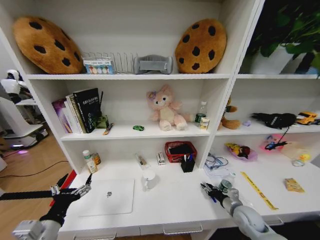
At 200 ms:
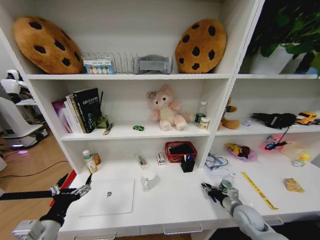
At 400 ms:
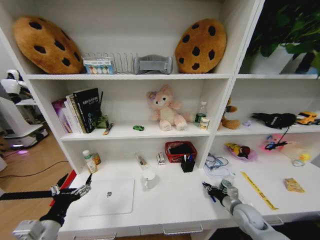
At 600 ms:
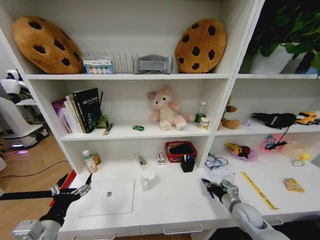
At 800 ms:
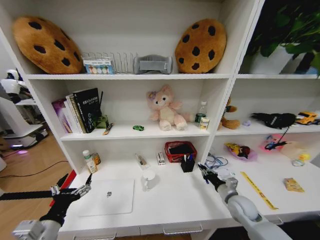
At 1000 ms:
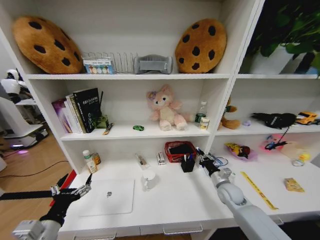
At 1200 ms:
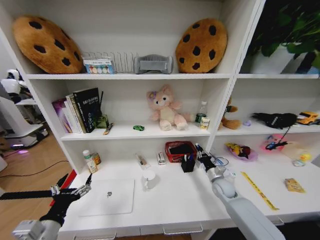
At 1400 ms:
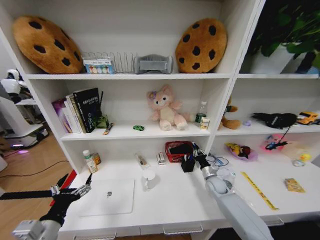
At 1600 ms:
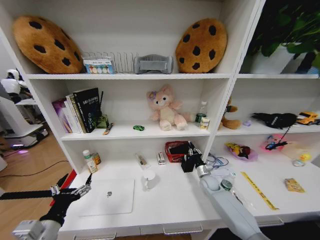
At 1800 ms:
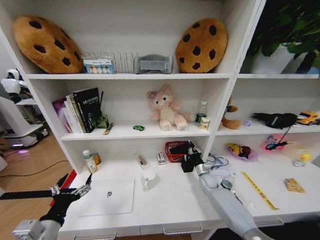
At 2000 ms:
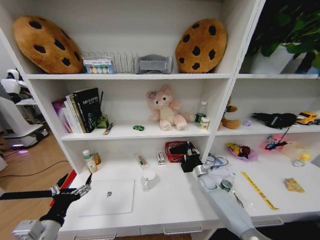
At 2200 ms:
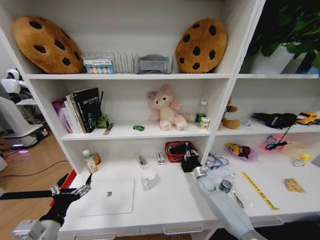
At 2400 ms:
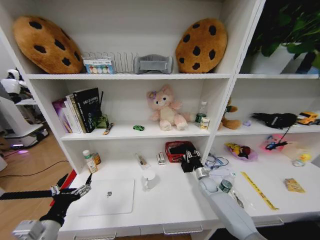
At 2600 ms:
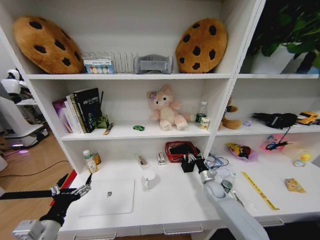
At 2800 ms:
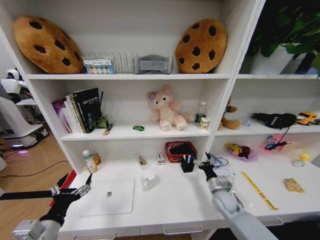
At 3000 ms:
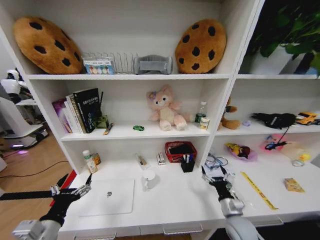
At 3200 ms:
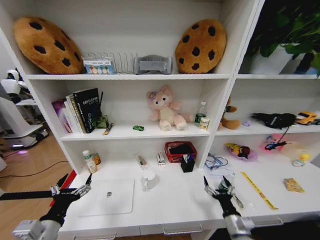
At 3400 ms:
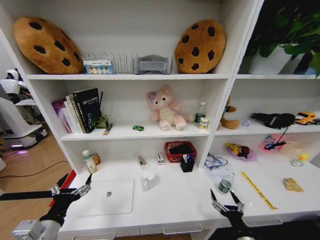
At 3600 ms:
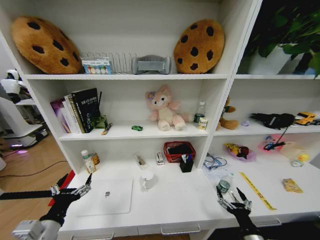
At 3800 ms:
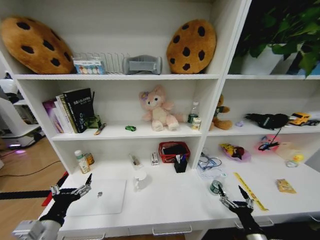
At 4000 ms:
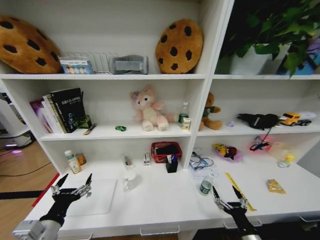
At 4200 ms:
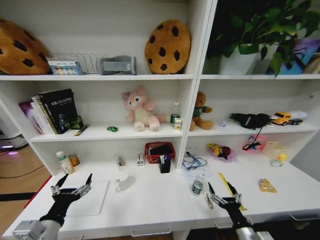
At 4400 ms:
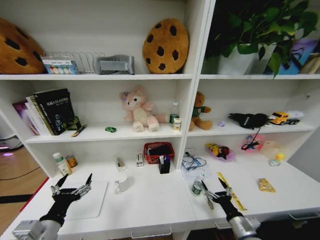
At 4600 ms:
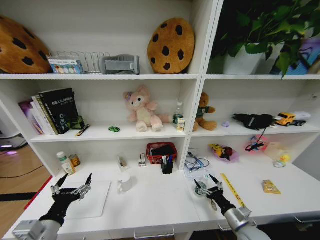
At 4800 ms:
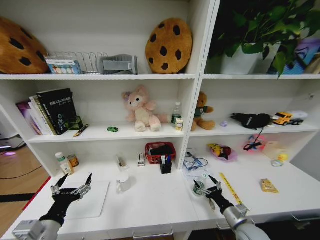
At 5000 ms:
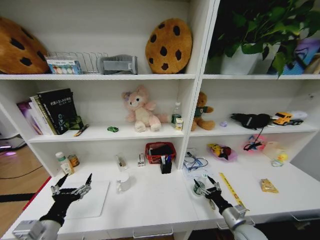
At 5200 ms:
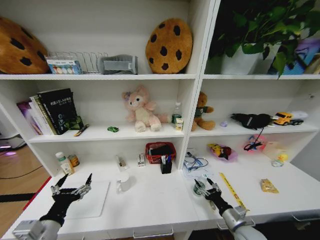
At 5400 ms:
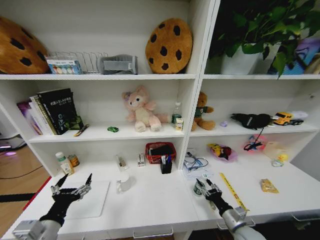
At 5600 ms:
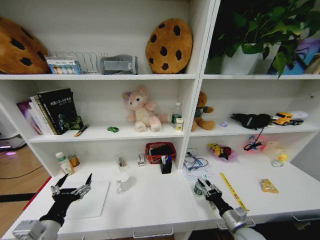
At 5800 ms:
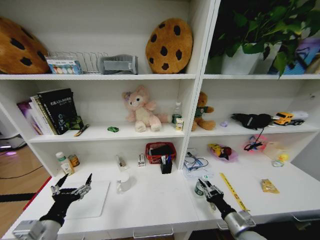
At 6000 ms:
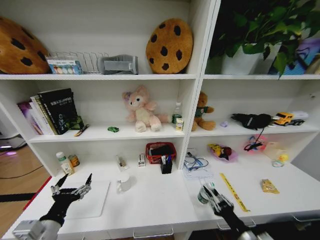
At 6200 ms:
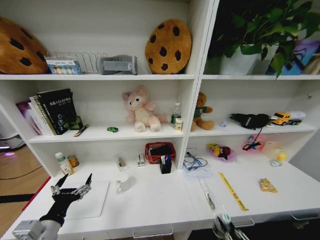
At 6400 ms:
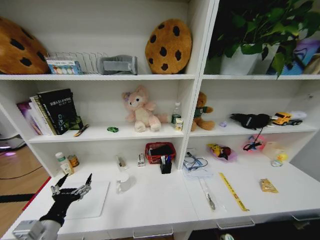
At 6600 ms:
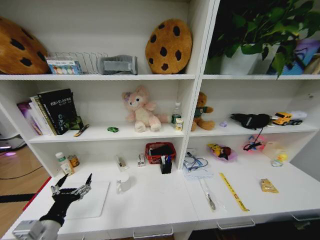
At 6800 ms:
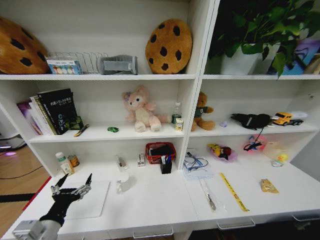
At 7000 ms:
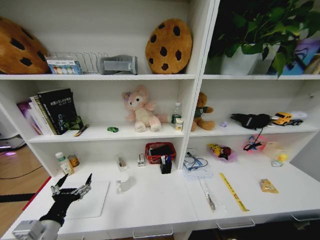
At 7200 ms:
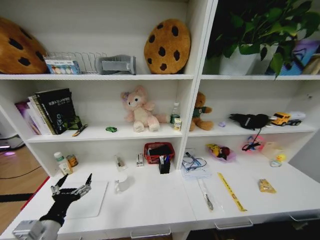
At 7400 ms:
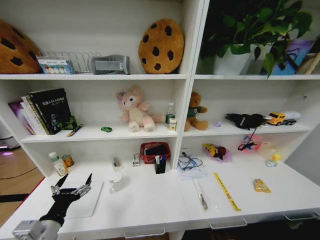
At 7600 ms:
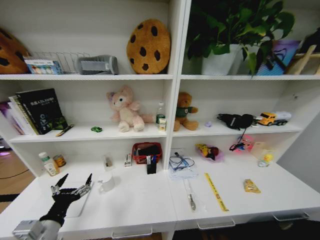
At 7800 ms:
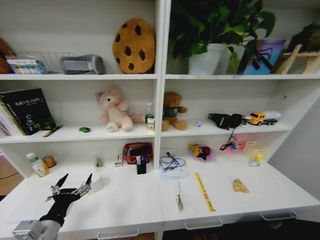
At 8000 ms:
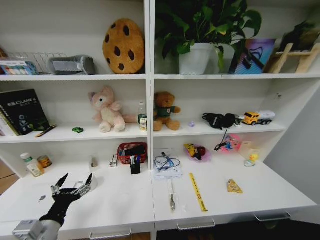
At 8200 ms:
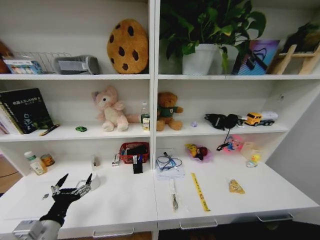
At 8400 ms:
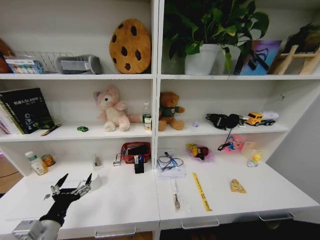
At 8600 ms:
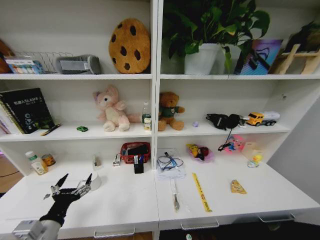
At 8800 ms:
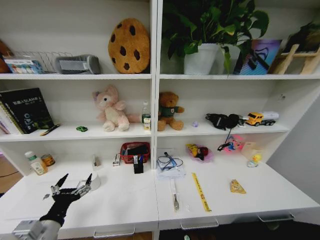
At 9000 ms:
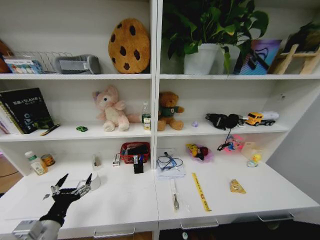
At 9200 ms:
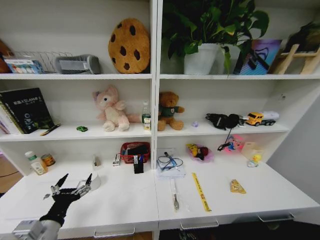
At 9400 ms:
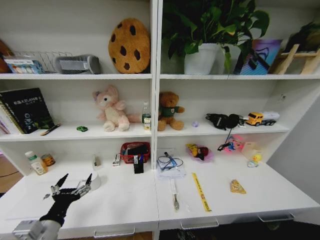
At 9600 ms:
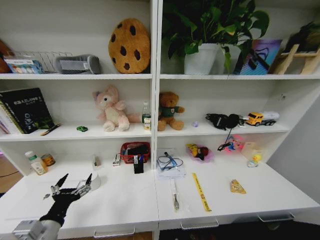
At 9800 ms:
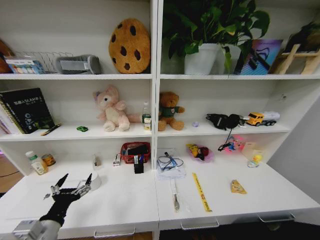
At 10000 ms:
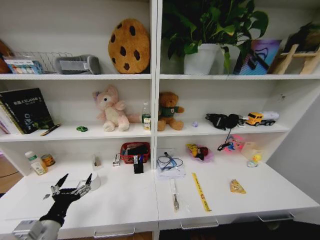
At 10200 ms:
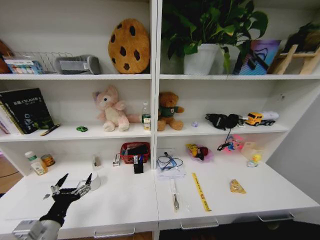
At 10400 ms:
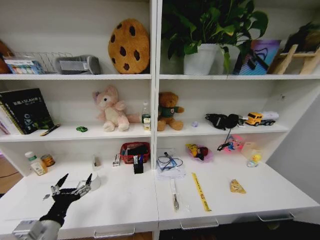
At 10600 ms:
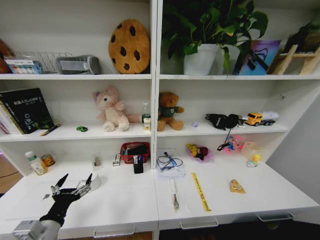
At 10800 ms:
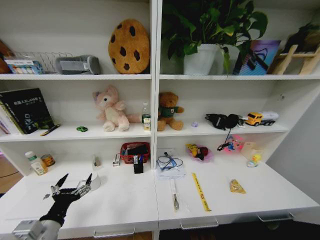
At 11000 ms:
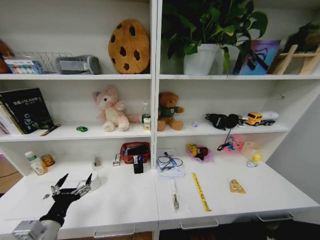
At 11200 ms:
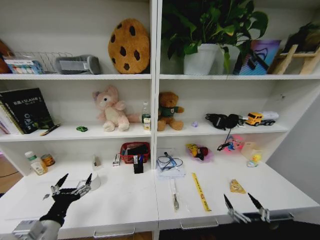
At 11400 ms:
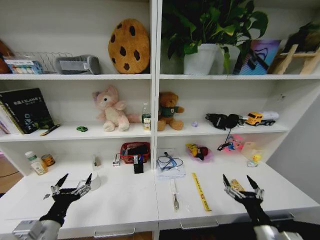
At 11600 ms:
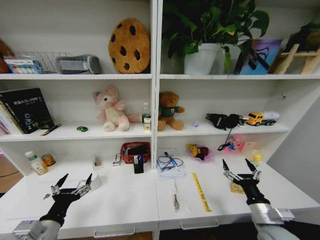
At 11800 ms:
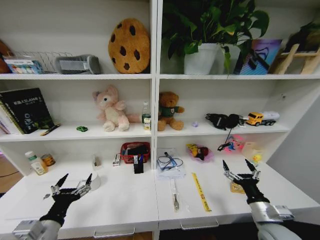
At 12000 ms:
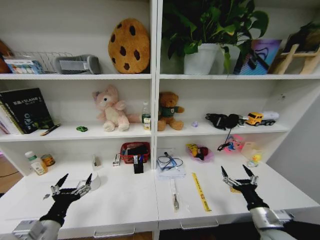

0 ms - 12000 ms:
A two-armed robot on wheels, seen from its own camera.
Task of the whole recording: Organize the objects on the table.
0 ms - 1600 ms: The right gripper moves forward and to the left, about 20 cm, and closes its fingers.
1600 ms - 3000 ms: The right gripper travels backward by roughly 20 cm, and opens.
3000 ms - 4400 ms: The right gripper travels backward by about 10 cm.
4400 ms - 6000 ms: The right gripper heads backward, covering some 5 cm, and closes its fingers.
6000 ms - 7600 ms: The right gripper shifts roughly 25 cm backward and downward.
7600 ms - 9000 ms: The right gripper goes some 25 cm downward and forward.
10400 ms - 12000 ms: The right gripper heads upward and forward, covering approximately 40 cm.

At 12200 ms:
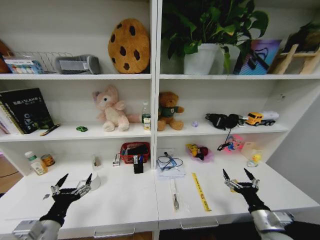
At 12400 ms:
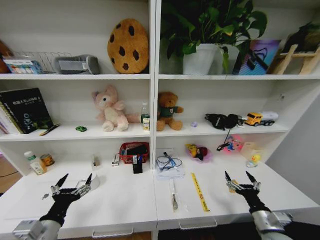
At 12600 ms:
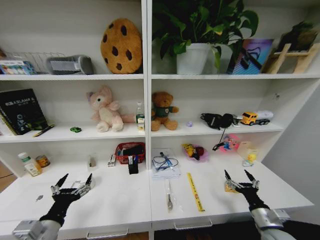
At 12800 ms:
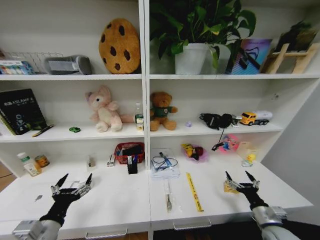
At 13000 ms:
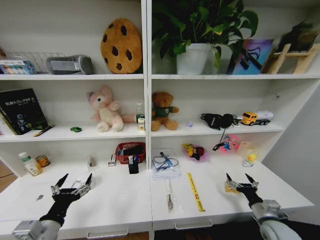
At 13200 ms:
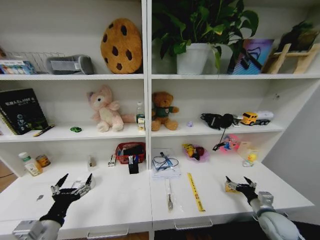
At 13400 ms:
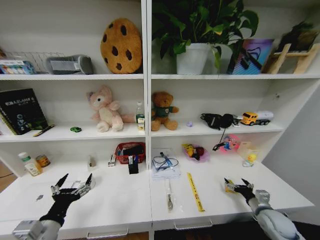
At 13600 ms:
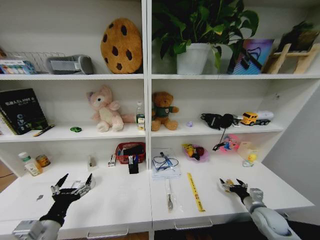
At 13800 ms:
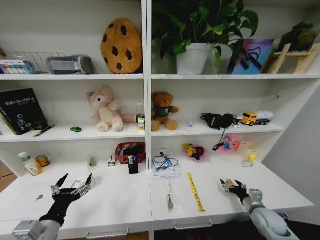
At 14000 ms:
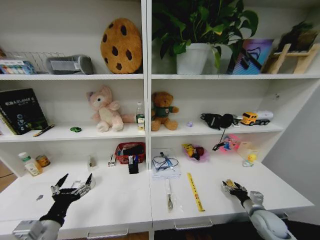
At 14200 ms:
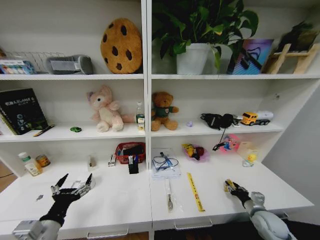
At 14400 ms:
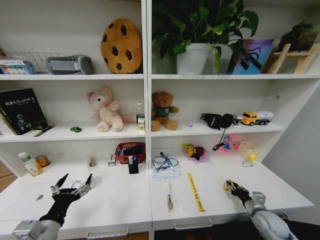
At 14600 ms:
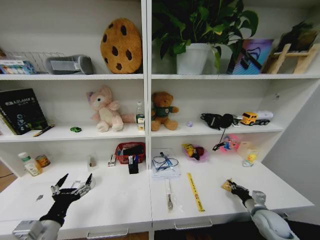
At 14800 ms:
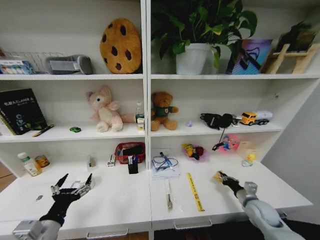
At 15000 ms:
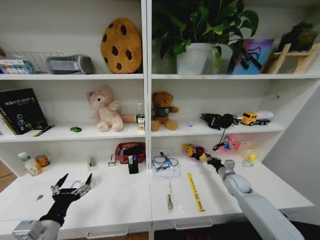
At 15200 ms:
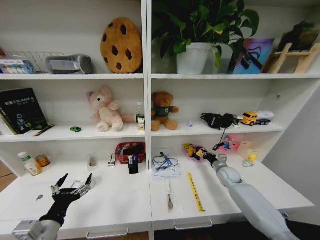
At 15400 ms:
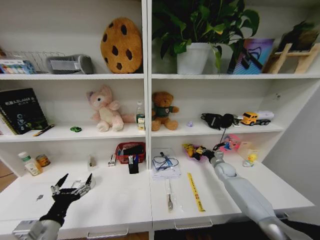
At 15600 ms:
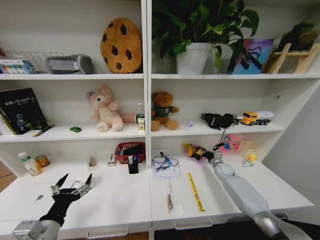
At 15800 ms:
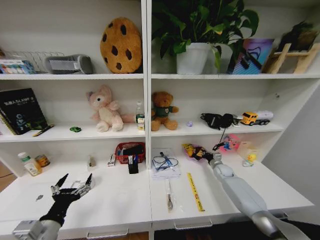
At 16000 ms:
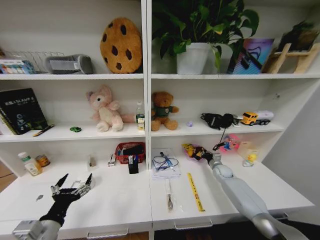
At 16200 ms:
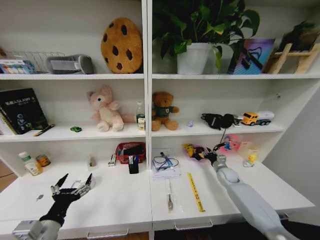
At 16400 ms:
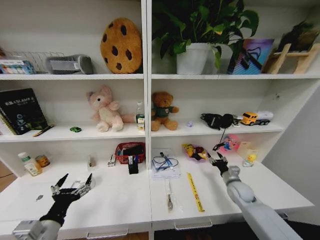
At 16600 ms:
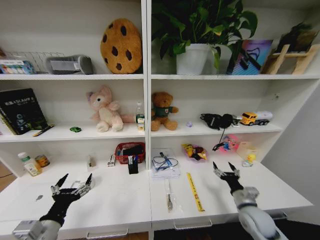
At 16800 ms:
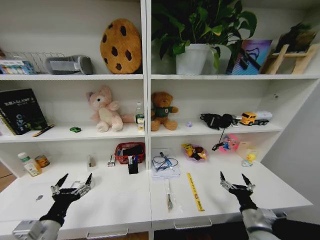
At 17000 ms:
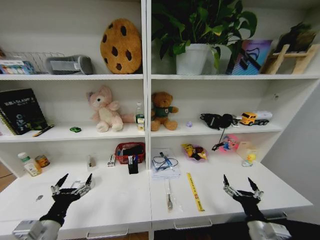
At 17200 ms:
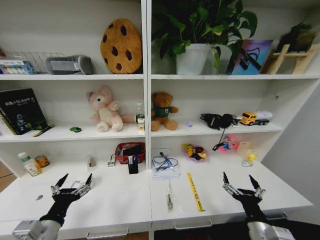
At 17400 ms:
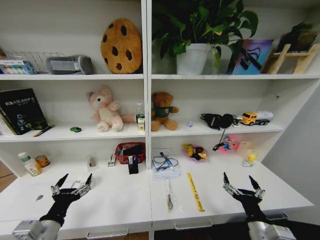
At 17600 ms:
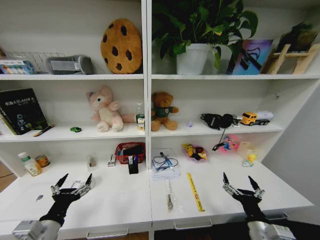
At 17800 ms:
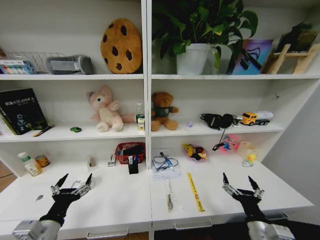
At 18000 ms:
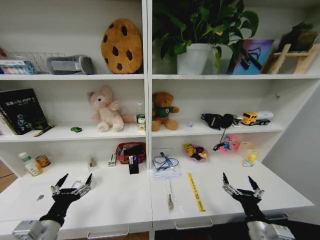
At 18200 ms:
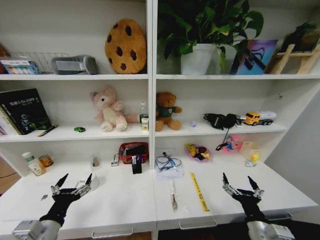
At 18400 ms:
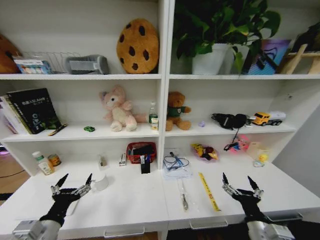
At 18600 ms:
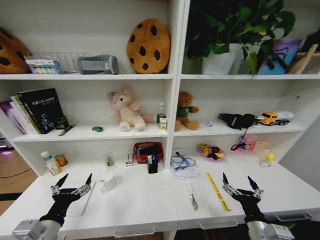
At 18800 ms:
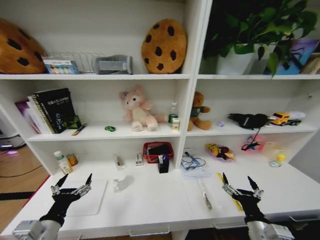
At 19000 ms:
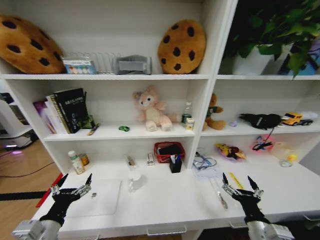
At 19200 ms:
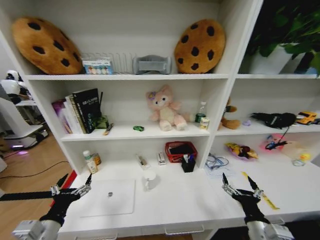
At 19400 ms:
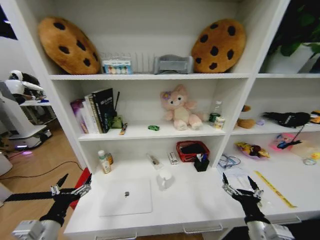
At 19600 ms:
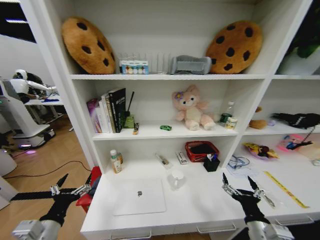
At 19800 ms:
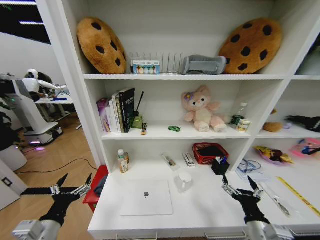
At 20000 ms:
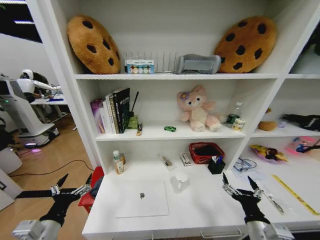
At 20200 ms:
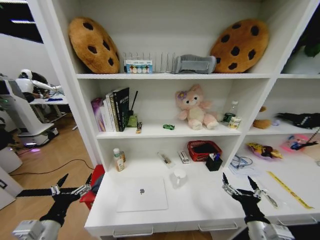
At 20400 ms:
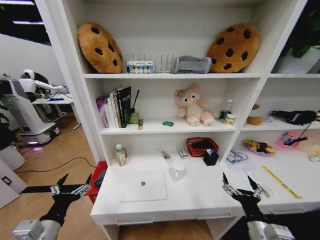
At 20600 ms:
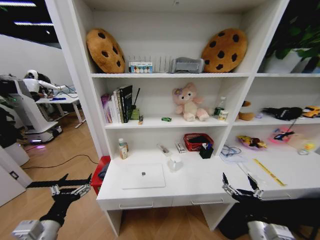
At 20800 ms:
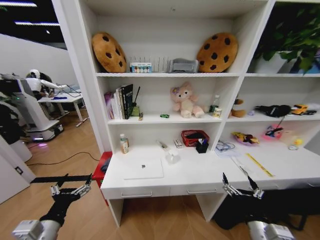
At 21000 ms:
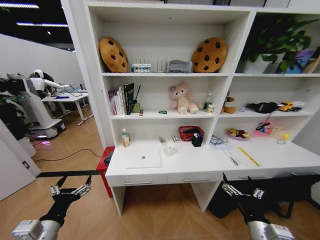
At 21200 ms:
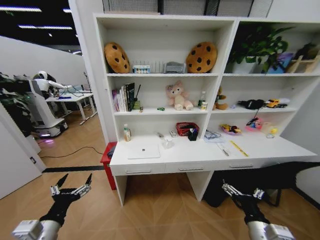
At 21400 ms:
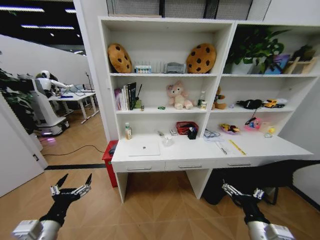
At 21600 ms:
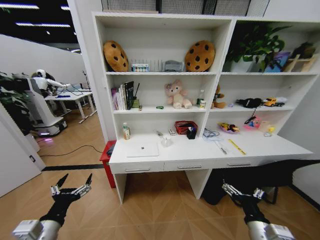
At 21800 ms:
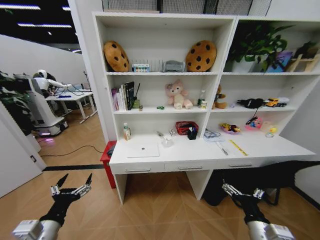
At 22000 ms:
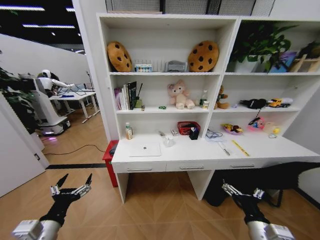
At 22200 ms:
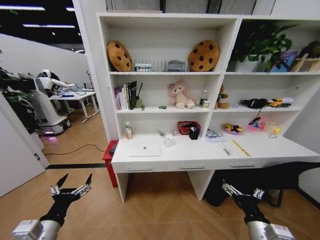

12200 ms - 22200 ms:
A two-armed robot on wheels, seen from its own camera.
Task of the whole recording: Organize the objects on the table.
12200 ms - 13600 ms: The right gripper goes about 15 cm forward, to the right and downward.
13600 ms - 15000 ms: The right gripper shifts approximately 10 cm forward and to the left, and closes.
15000 ms - 16400 ms: The right gripper goes forward and returns, approximately 15 cm each way, and opens up.
16400 ms - 18000 ms: The right gripper is displaced backward by about 25 cm, and opens up.
